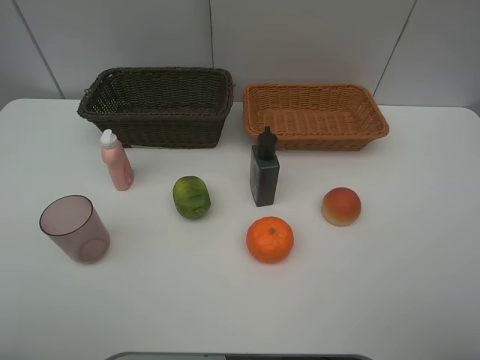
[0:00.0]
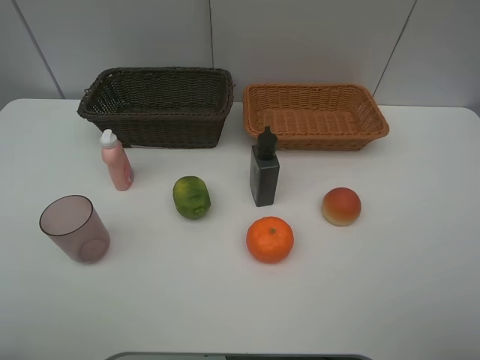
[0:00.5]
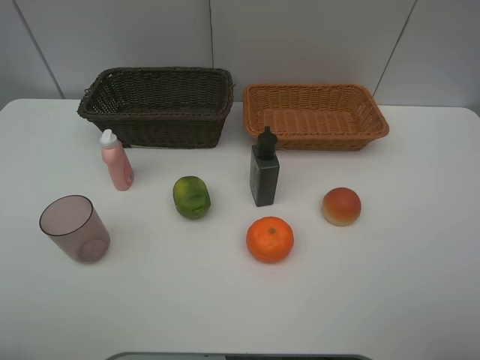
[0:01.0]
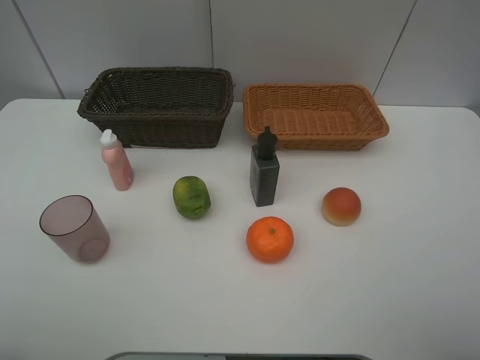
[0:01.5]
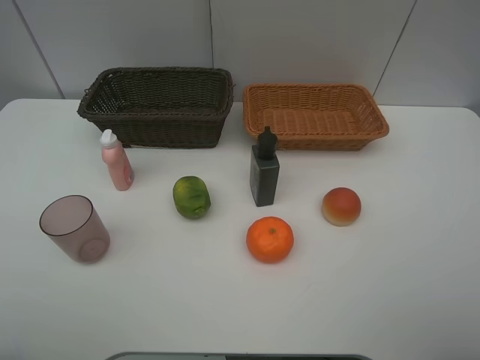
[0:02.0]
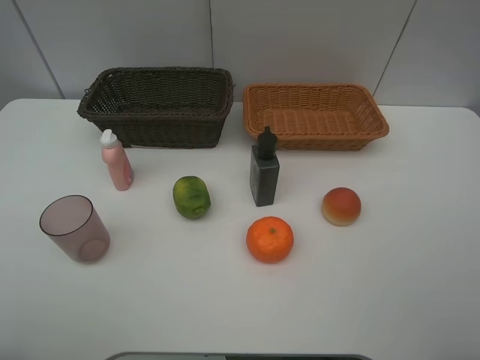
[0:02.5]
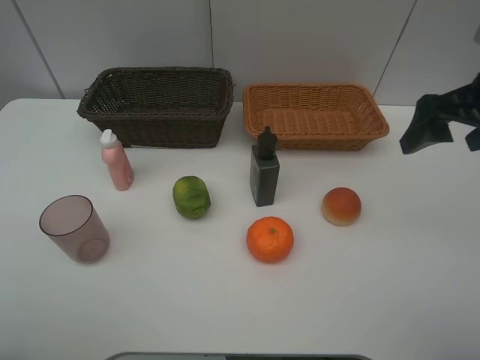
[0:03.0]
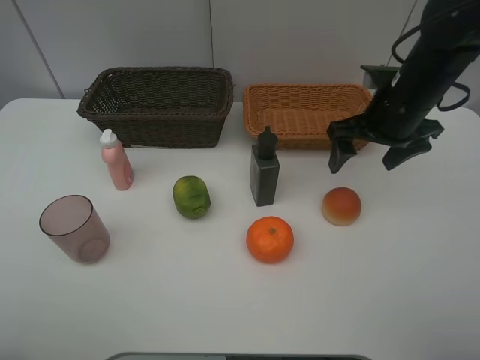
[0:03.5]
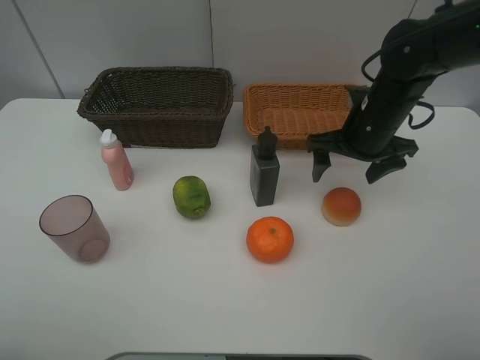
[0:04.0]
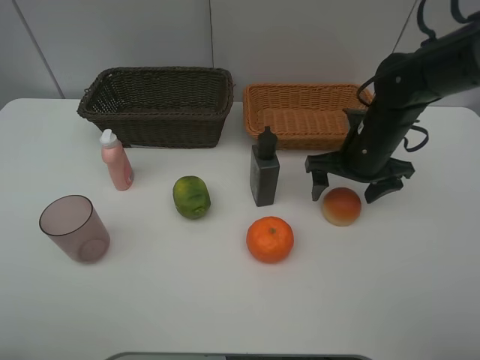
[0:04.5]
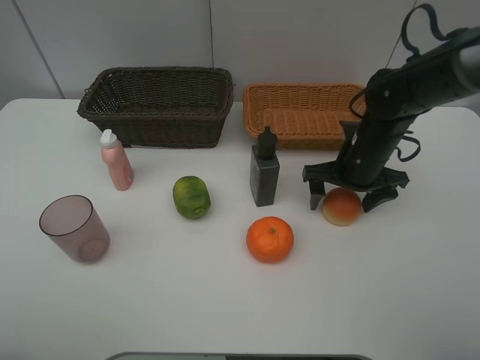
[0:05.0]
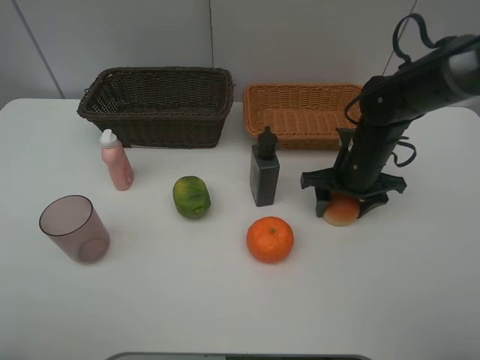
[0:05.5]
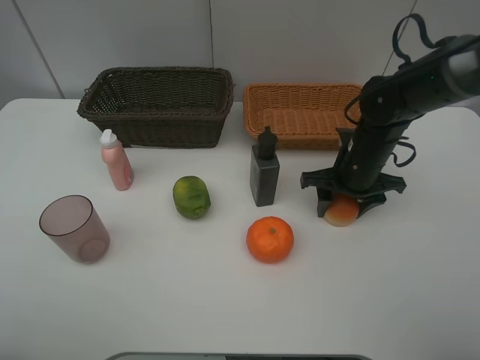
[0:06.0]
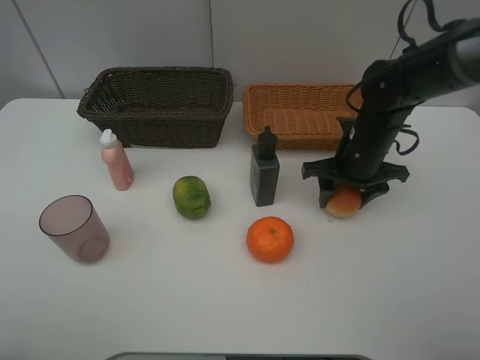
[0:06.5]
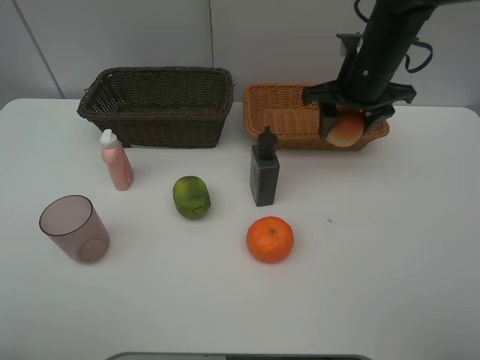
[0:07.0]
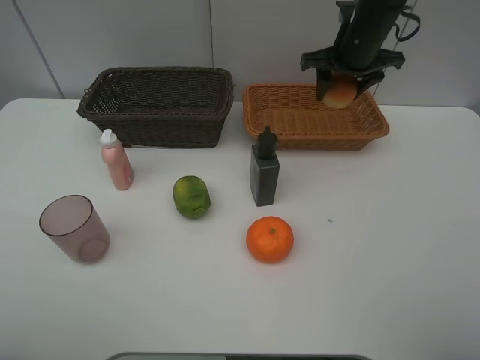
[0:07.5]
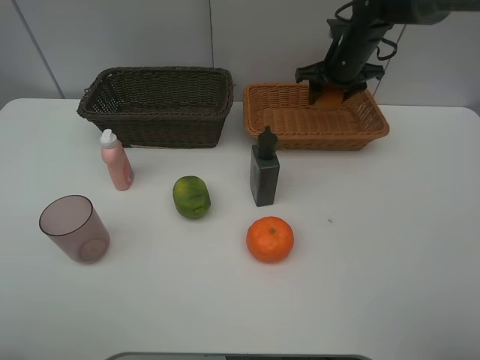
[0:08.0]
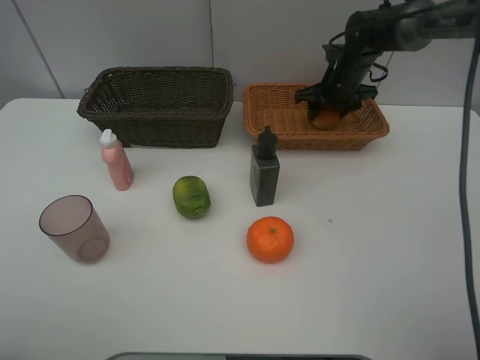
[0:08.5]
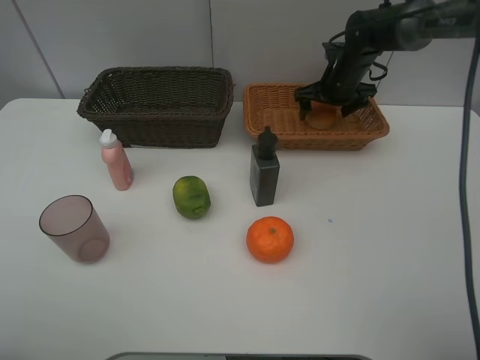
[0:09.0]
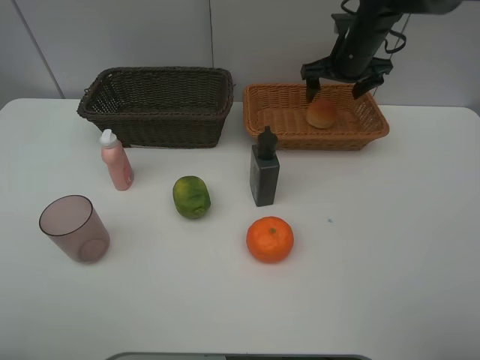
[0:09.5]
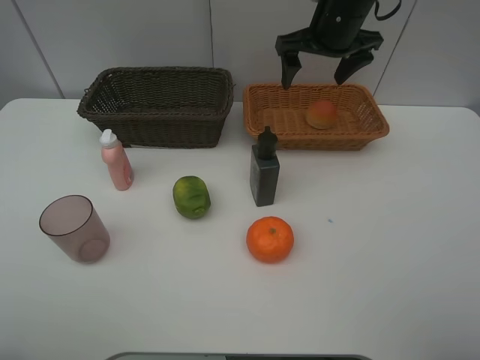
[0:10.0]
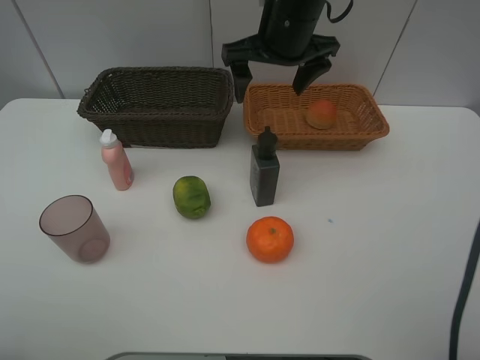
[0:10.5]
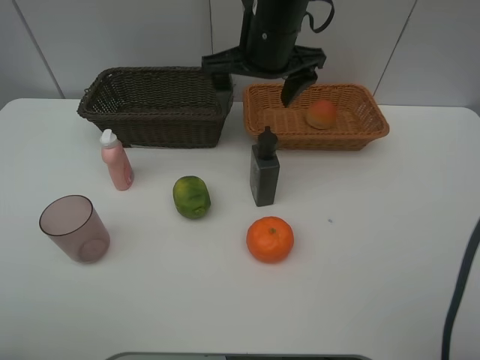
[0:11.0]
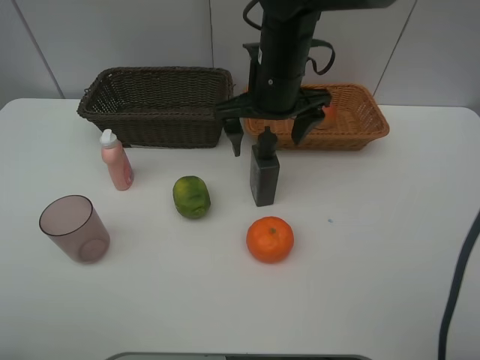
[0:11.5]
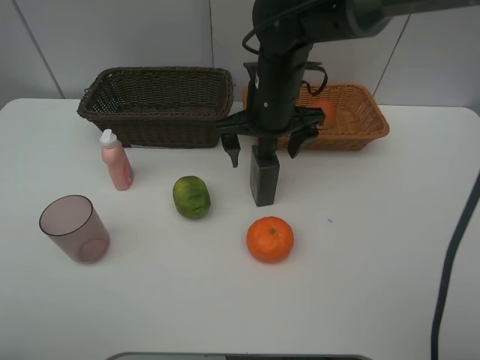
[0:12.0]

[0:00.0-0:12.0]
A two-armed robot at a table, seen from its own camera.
Task of the whole recording: place multiple objects separately in different baskets.
0:00.0 to 0:02.0: The two grippers keep their place.
0:02.0 to 0:04.0: The right gripper moves forward, some 35 cm.
0:04.0 to 0:06.0: The right gripper shifts some 5 cm downward, and closes its fingers.
0:06.0 to 0:08.0: The right gripper is displaced forward and upward by approximately 20 cm.
0:08.0 to 0:10.0: The right gripper heads upward, backward and to the left, covering some 10 cm, and opens.
0:10.0 to 0:12.0: The right gripper goes about 15 cm to the left, backward and downward.

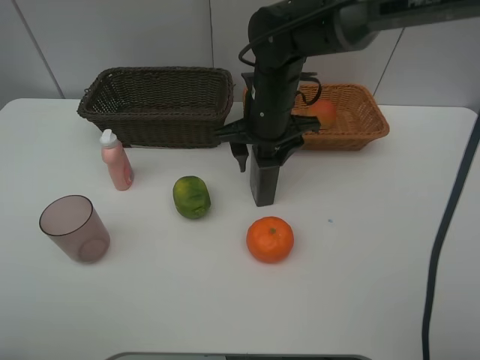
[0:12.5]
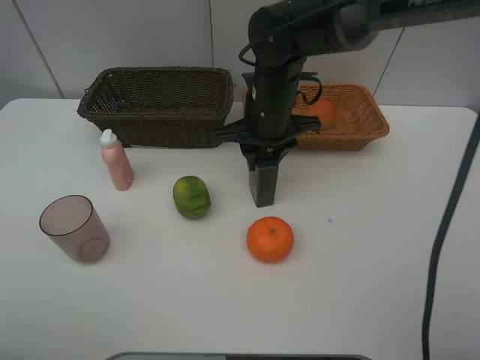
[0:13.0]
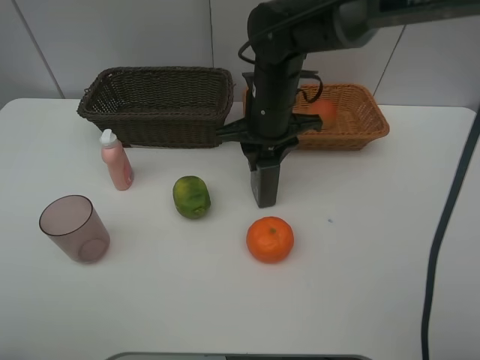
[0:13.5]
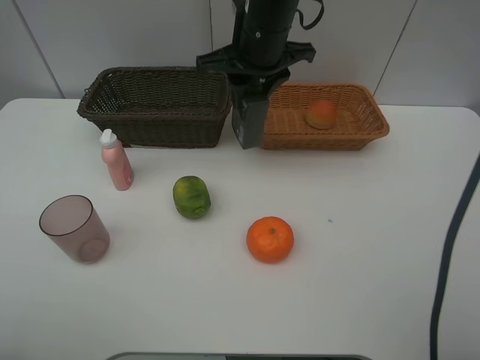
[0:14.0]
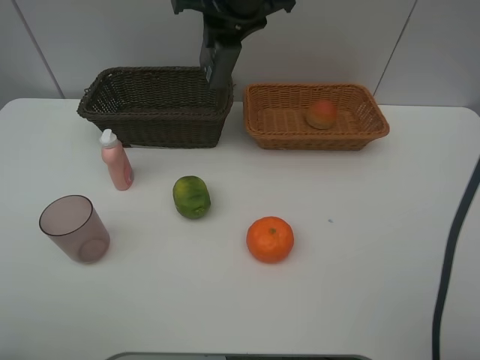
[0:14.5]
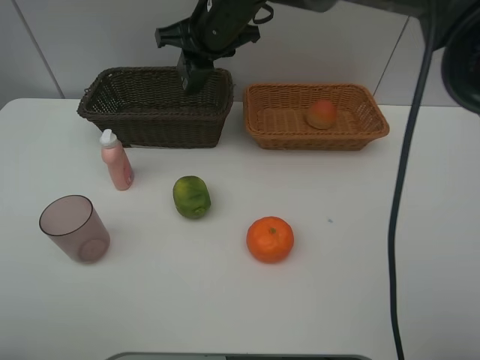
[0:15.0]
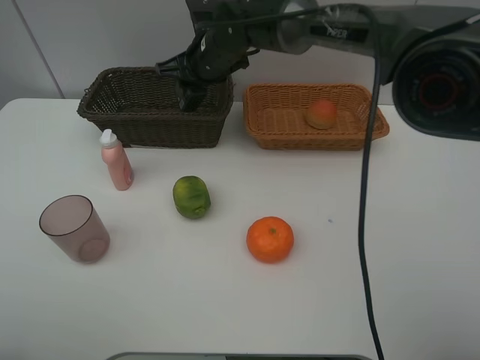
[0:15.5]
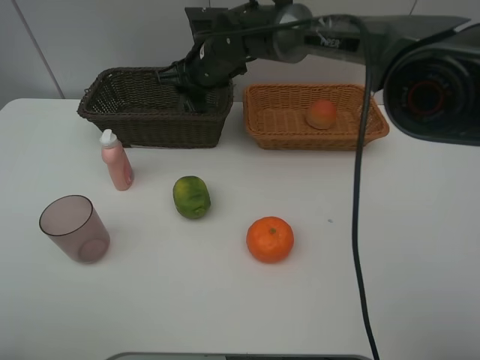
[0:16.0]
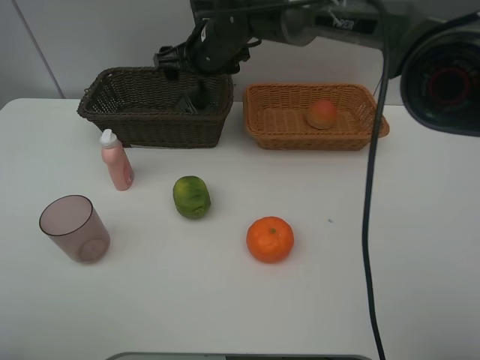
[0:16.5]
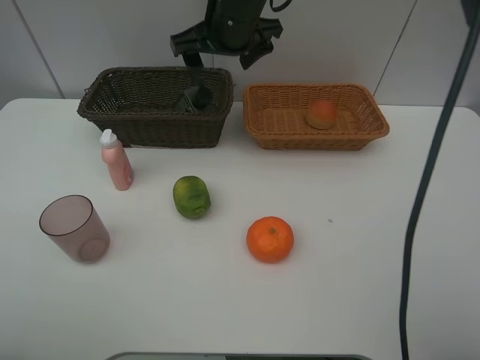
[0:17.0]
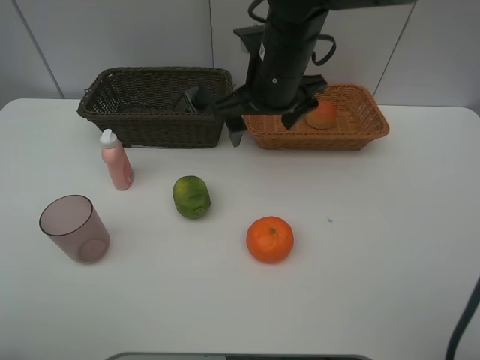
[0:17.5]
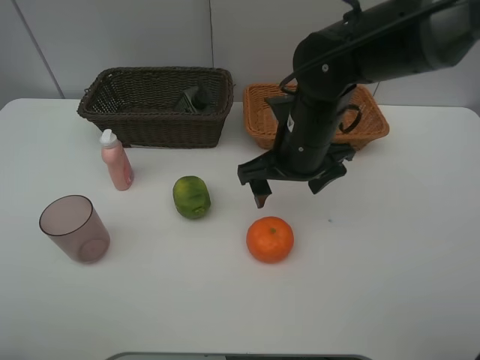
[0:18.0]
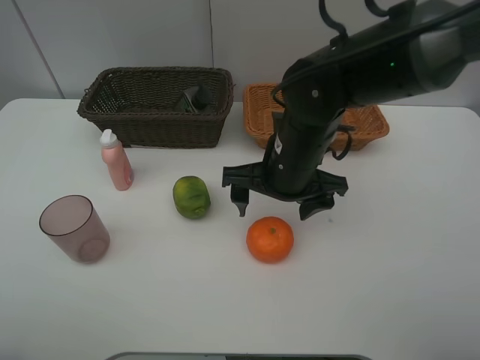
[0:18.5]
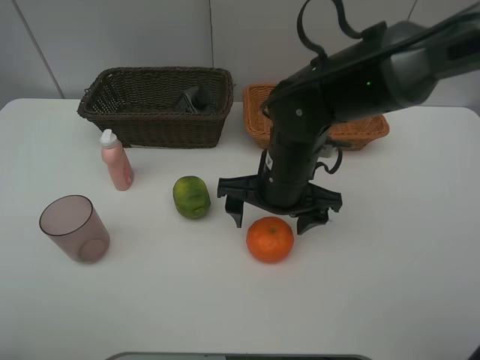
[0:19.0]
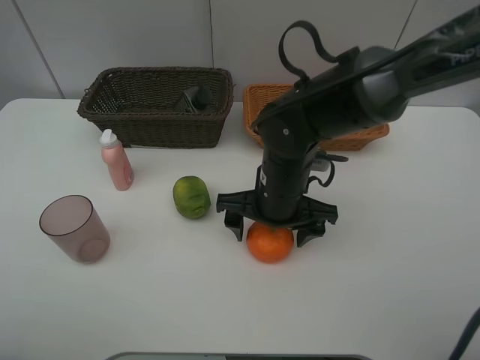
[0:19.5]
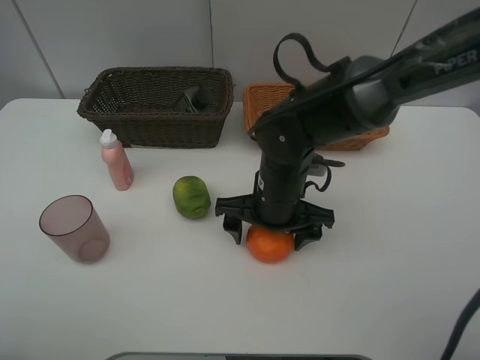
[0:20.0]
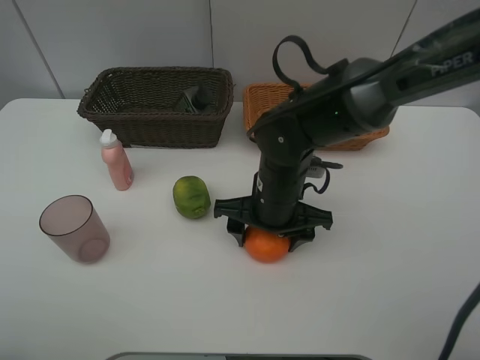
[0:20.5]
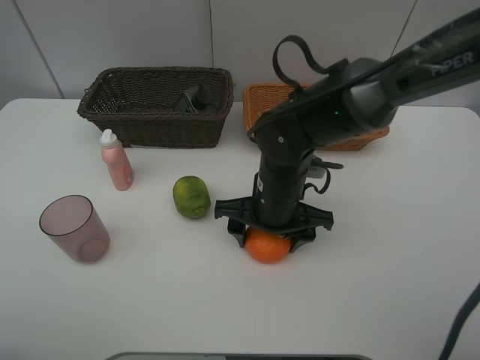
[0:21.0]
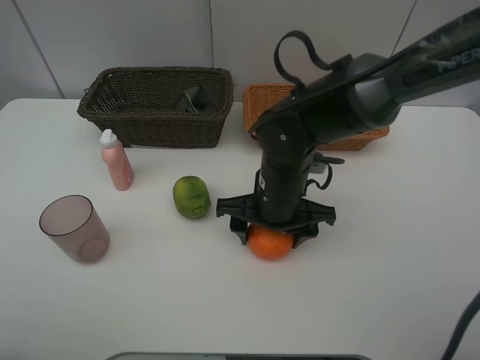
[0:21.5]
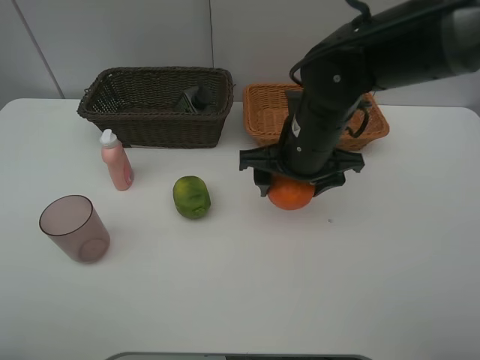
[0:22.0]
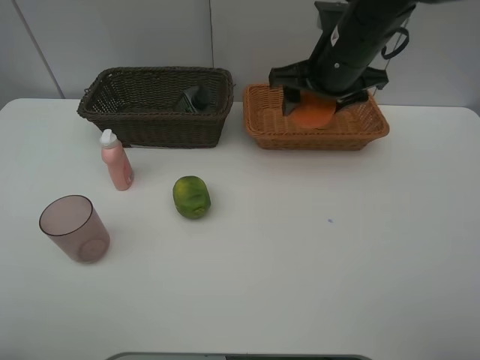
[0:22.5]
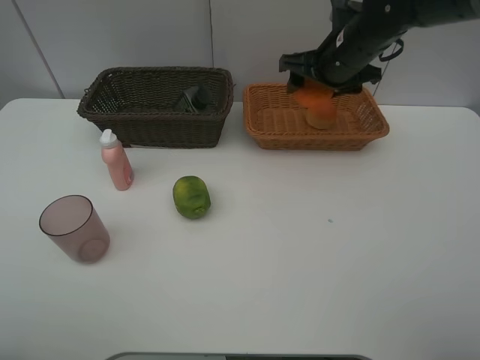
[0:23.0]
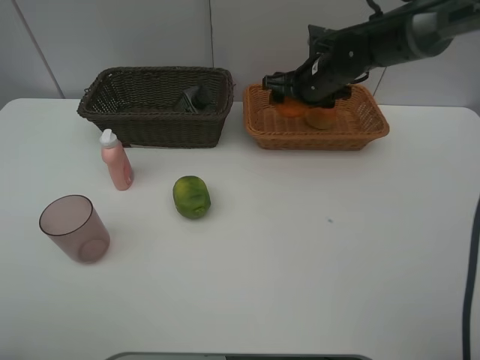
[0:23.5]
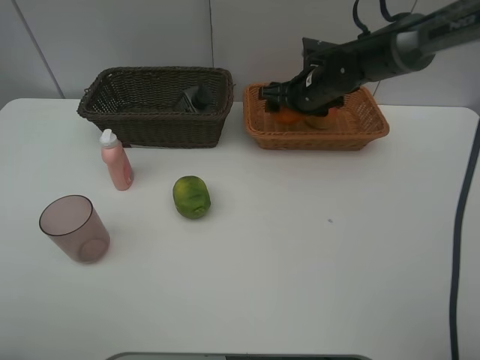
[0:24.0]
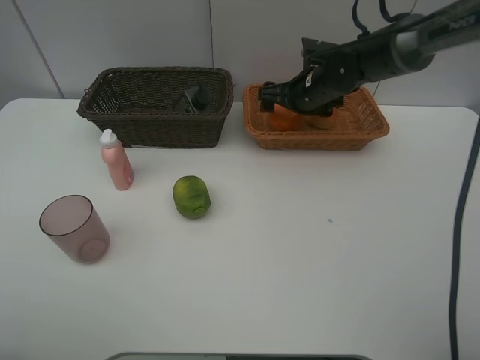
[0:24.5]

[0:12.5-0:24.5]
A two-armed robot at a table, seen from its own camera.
Task of the whole recording: place multiple objects separately in different baskets.
0:12.5 to 0:14.5: The right gripper travels upward by some 15 cm, and closes.
0:14.5 to 0:16.5: The right gripper heads downward and forward, covering roughly 10 cm, and opens.
0:16.5 to 0:18.5: The right gripper is displaced backward and to the right by about 20 cm.
0:18.5 to 0:20.5: The right gripper moves downward, approximately 5 cm.
0:20.5 to 0:22.5: The right gripper is displaced upward, forward and to the right by approximately 20 cm.
0:22.5 to 0:24.5: The right gripper travels downward and forward by some 15 cm, and opens its fingers.

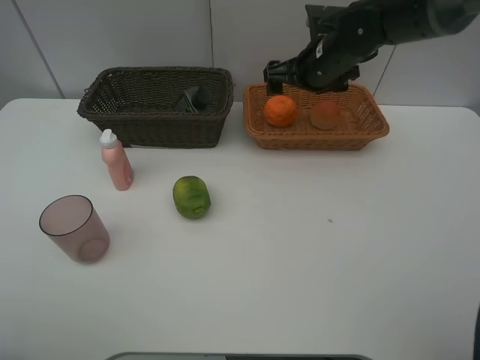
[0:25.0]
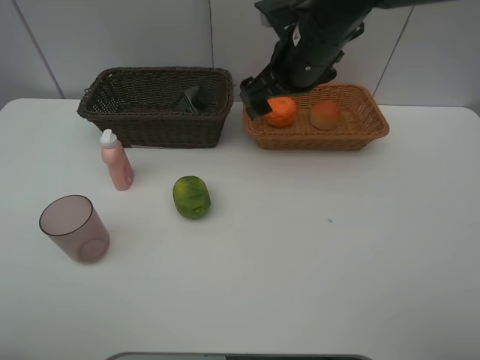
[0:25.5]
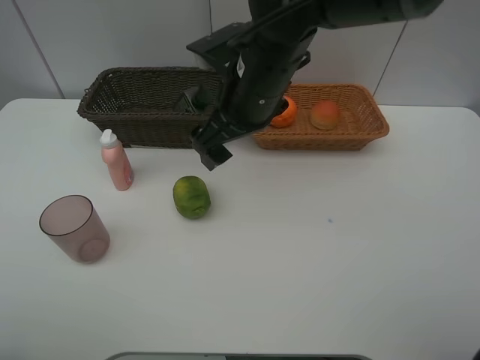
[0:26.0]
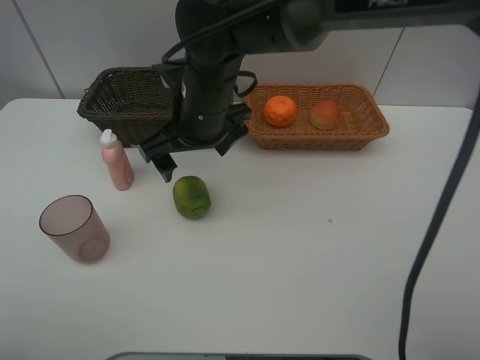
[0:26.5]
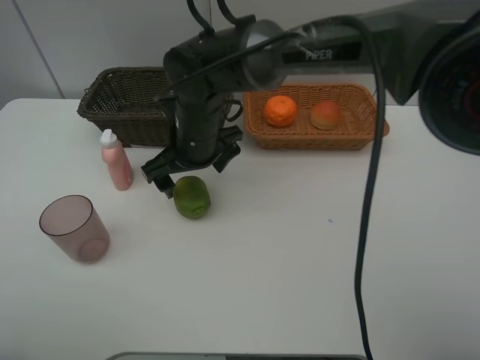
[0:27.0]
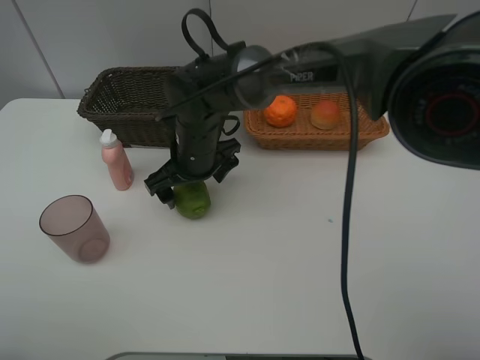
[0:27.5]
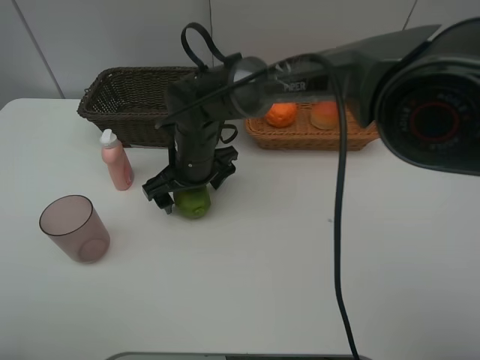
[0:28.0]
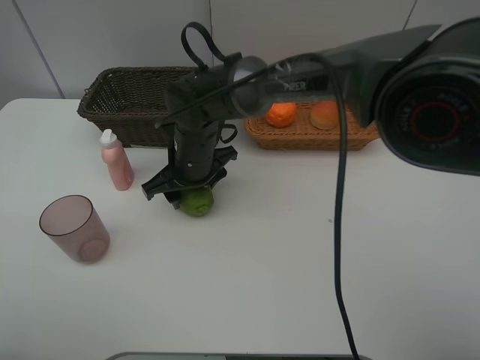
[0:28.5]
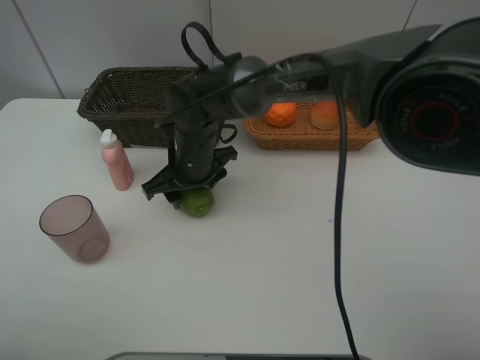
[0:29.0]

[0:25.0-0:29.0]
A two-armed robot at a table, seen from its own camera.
Task of the whole recording: place multiple objects separately in different baskets.
0:25.0 to 0:27.0: The right gripper heads to the left and backward, covering about 20 cm.
0:27.0 to 0:29.0: The right gripper closes.
